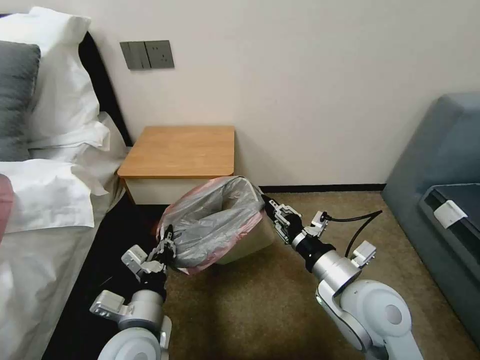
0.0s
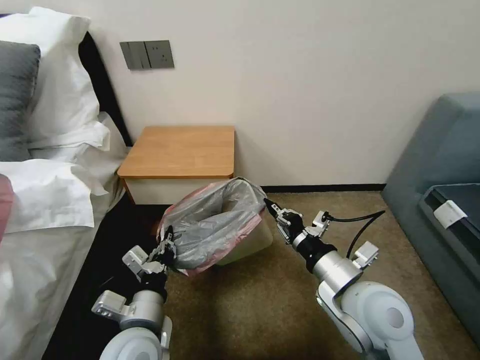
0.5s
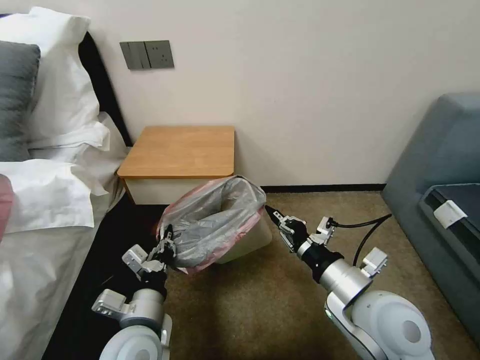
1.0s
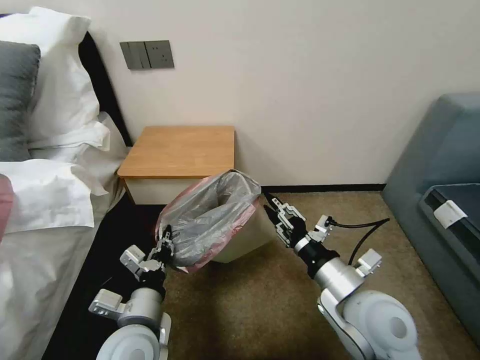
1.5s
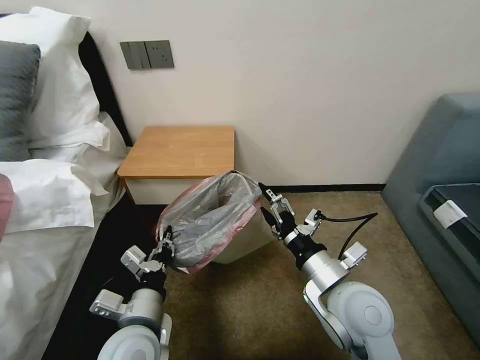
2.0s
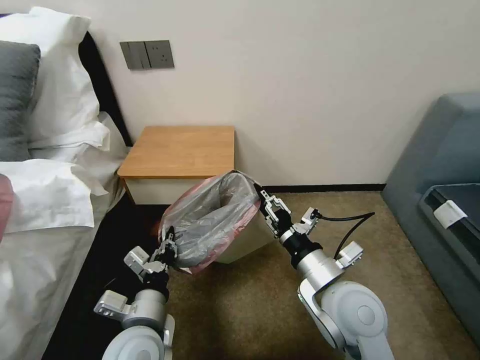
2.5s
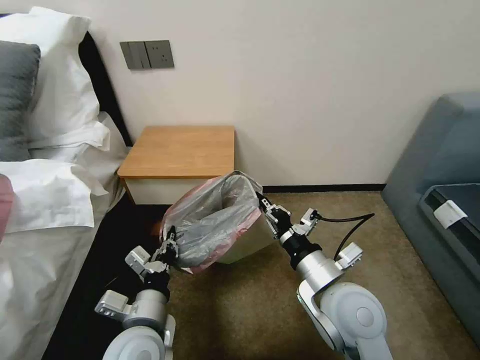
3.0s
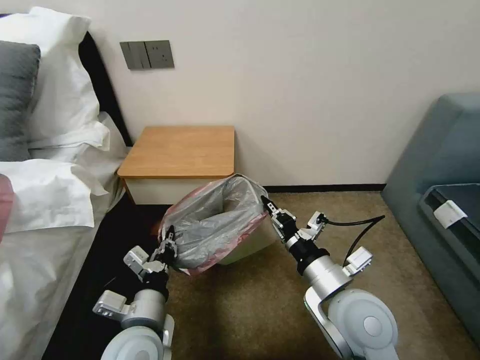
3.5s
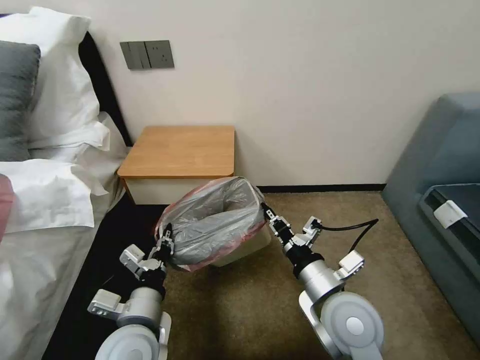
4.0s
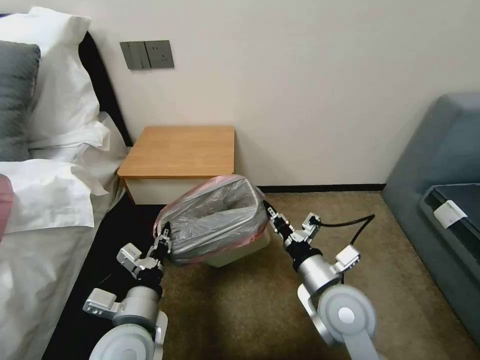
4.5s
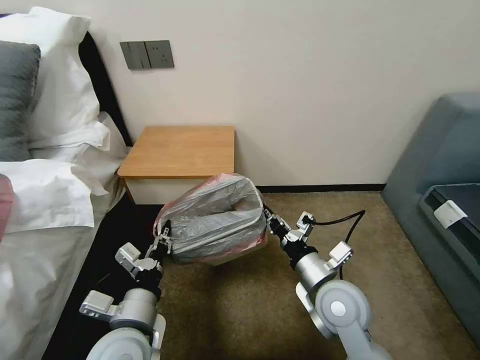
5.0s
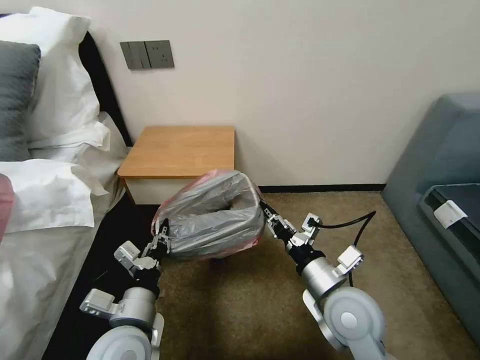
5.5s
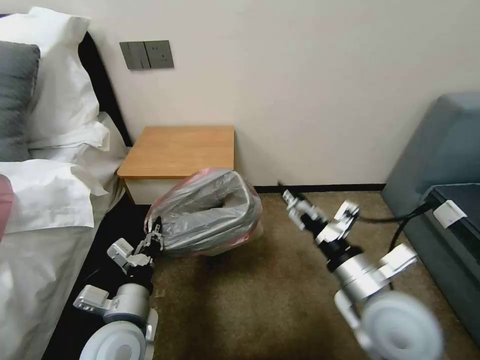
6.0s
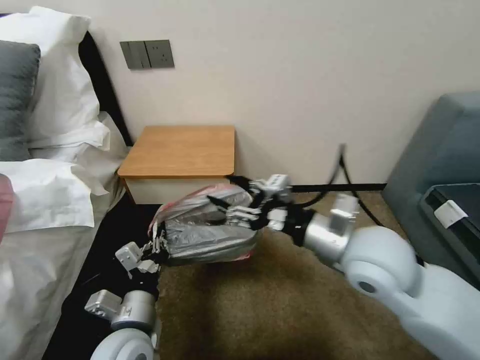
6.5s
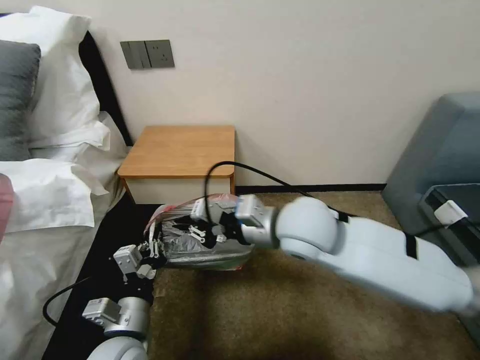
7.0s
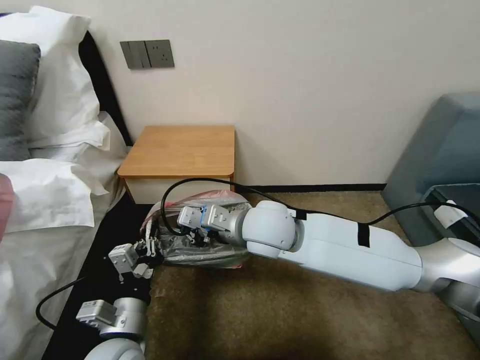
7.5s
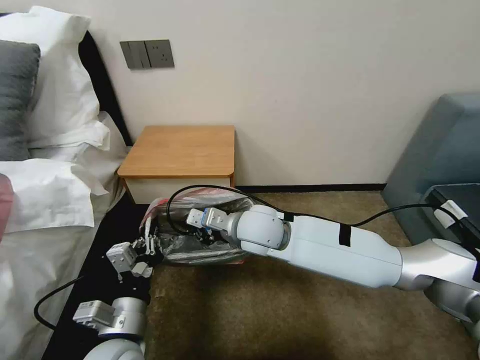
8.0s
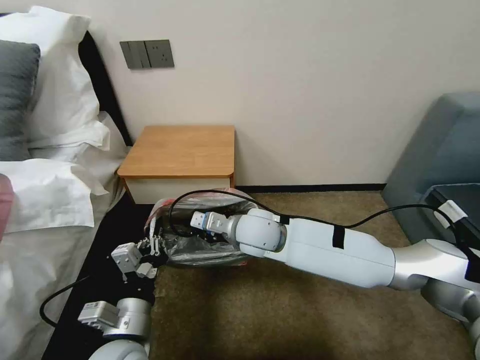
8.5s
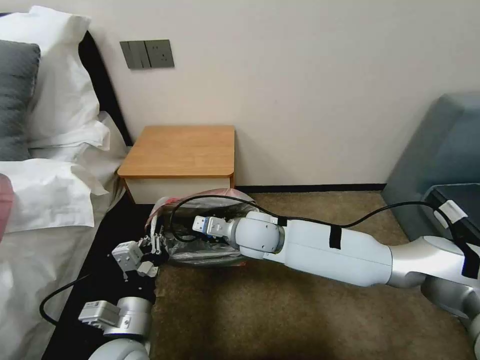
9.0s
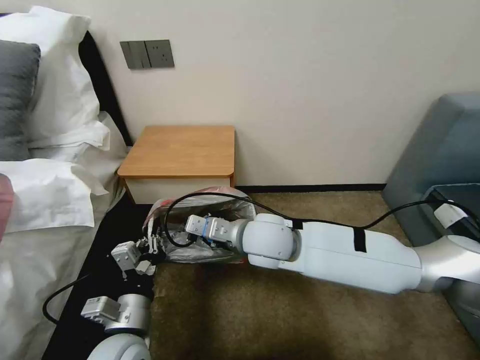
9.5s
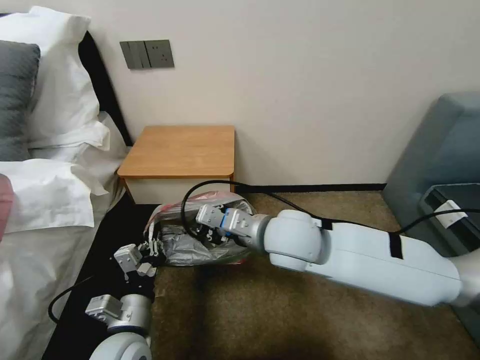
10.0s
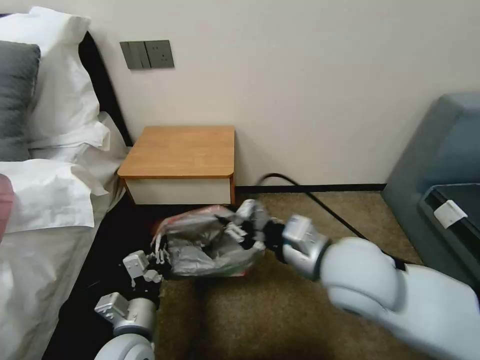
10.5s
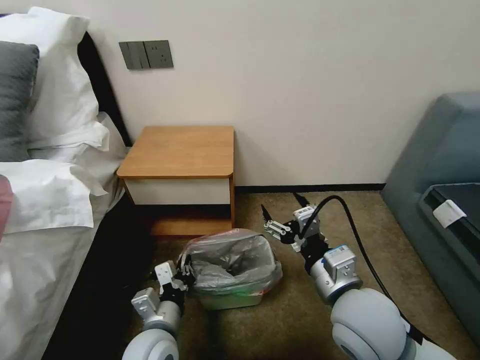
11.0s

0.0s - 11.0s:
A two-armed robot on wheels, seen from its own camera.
Task of the whole recording: Pick up the garbage bag from the table and place it over the trash can.
0.0s - 2.0s: The right gripper opens.
2.0s - 3.5s: The right gripper closes its fingers.
5.5s - 7.5s: The right gripper is displaced to the left, forward and upward by some 20 cm, and opens and closes again.
7.5s - 9.0s: The right gripper is displaced downward by about 10 cm.
9.0s - 11.0s: The left gripper shifts some 5 cm downward, while the right gripper is displaced backward and to the right by about 25 cm, and opens.

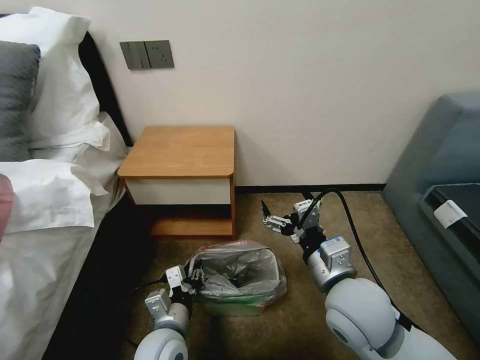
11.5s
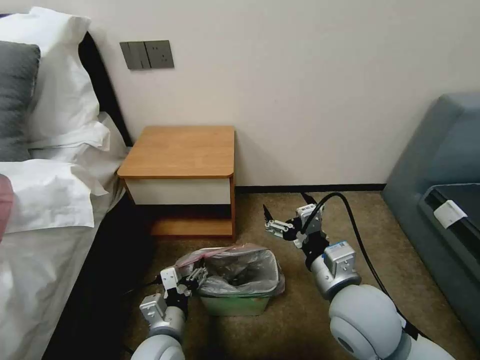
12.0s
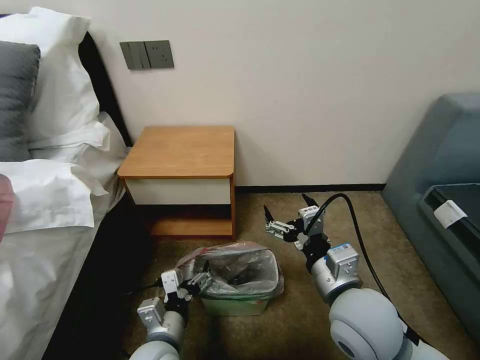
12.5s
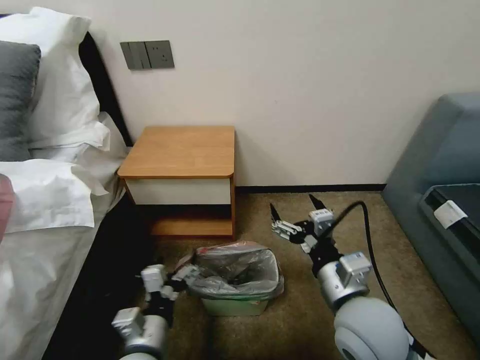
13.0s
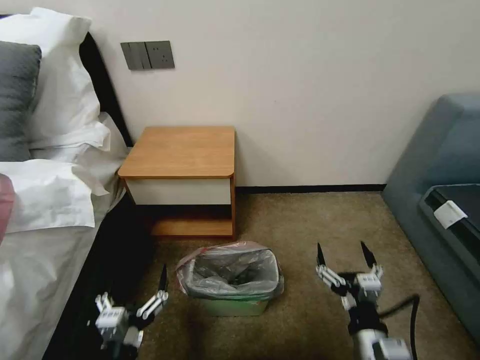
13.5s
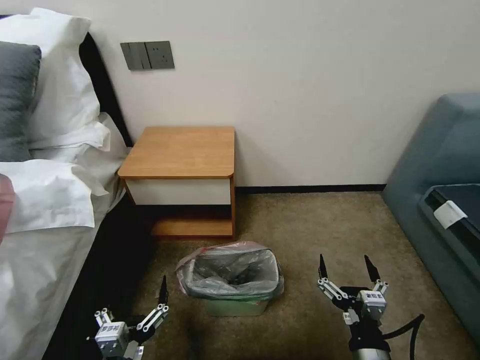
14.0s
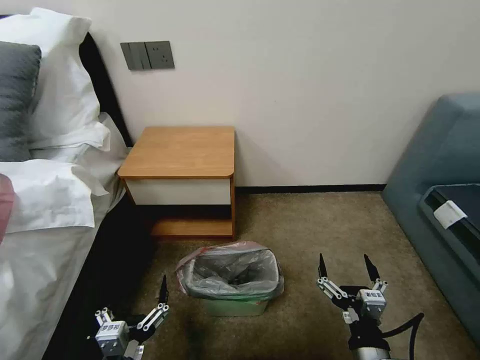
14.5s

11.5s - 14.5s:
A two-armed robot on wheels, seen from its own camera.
Task of the whole recording: Pick up the garbage bag from the table and place it over the trash can.
11.5s - 13.0s: The left gripper shifts by approximately 5 cm, and opens.
13.0s - 14.5s: The left gripper moves backward, approximately 10 cm. Meanwhile the right gripper moves downward and backward, about 15 cm.

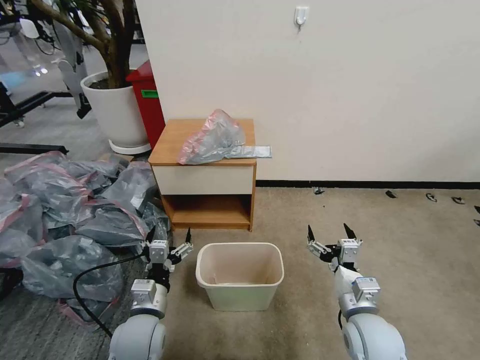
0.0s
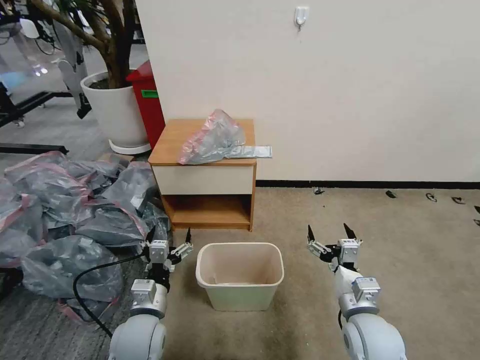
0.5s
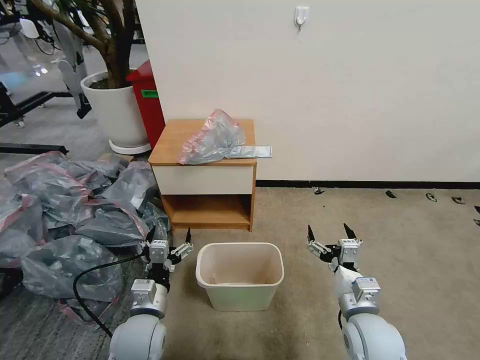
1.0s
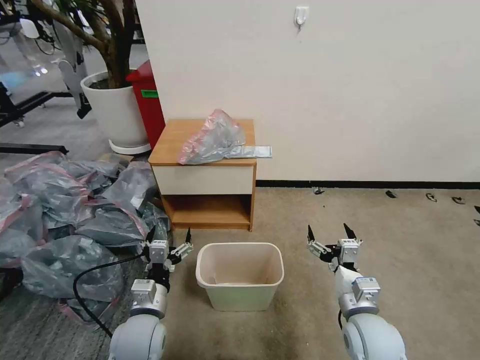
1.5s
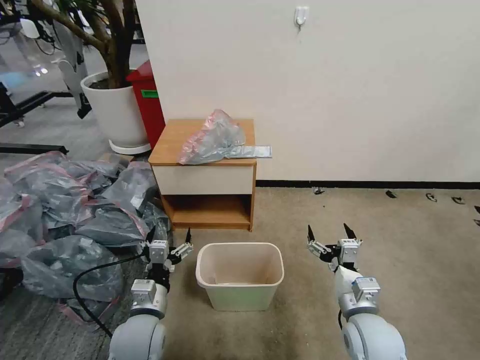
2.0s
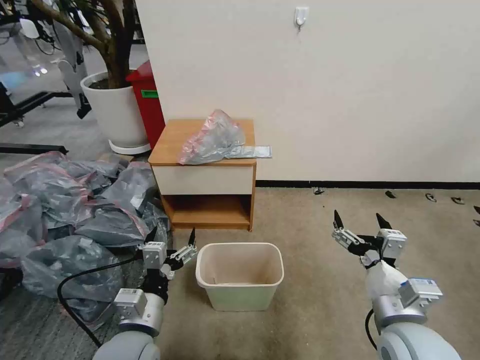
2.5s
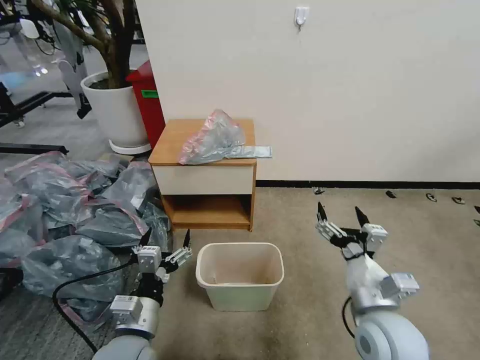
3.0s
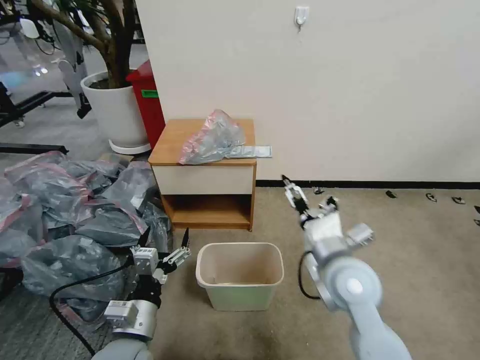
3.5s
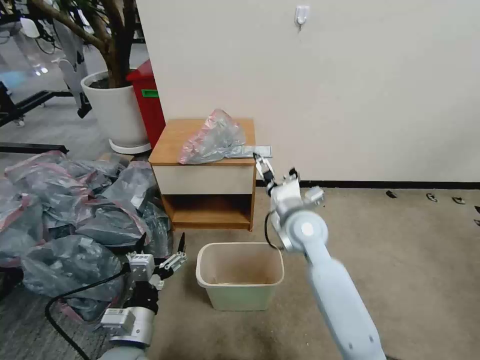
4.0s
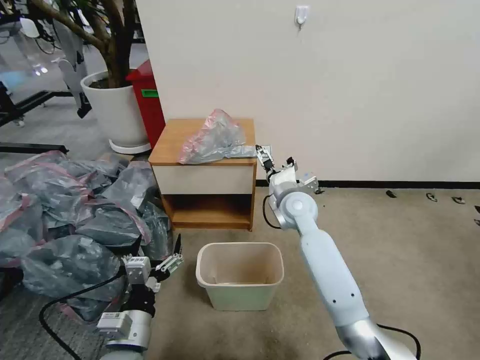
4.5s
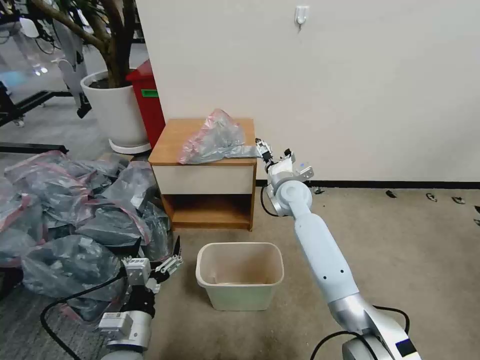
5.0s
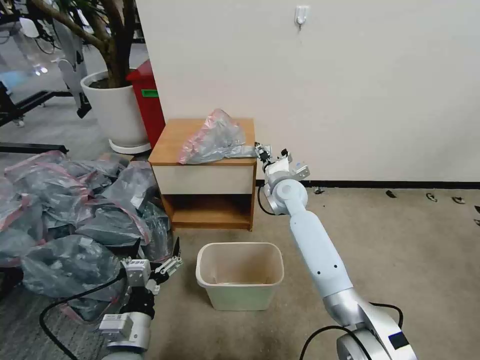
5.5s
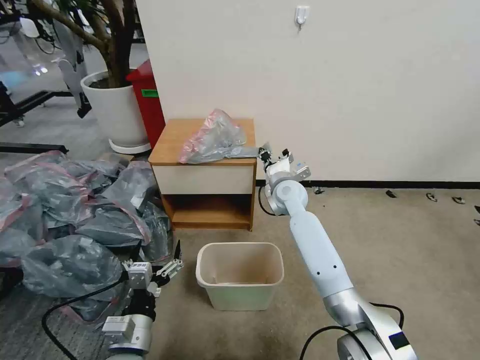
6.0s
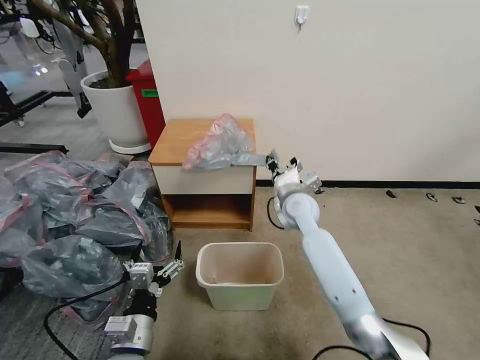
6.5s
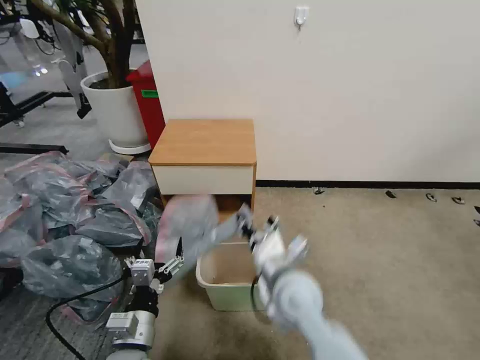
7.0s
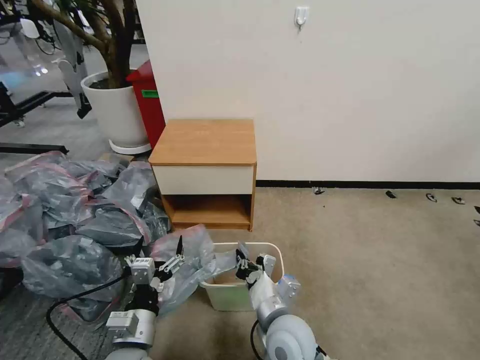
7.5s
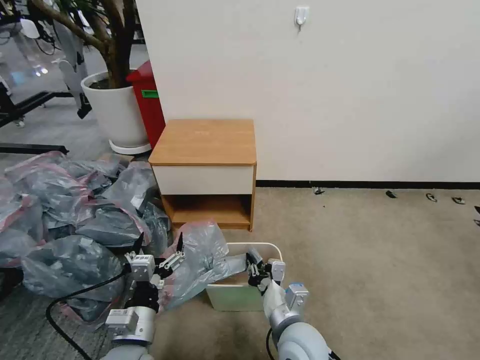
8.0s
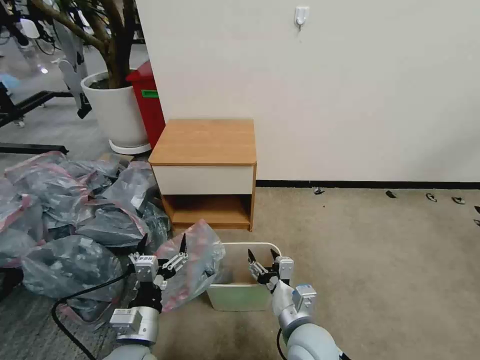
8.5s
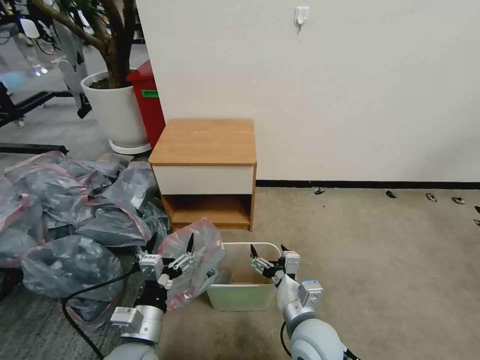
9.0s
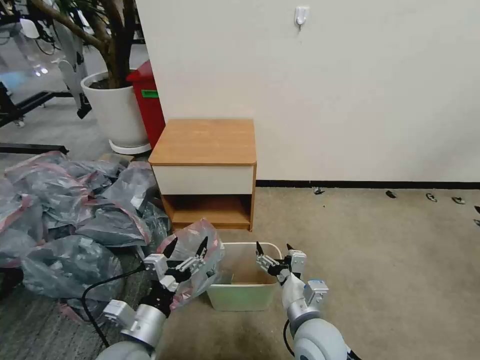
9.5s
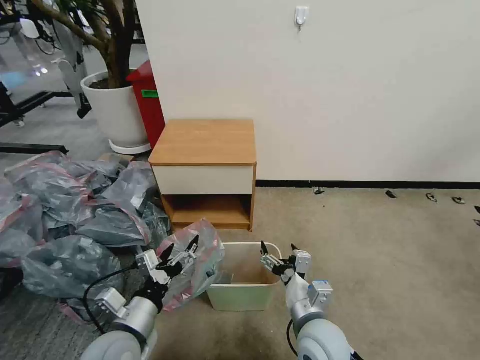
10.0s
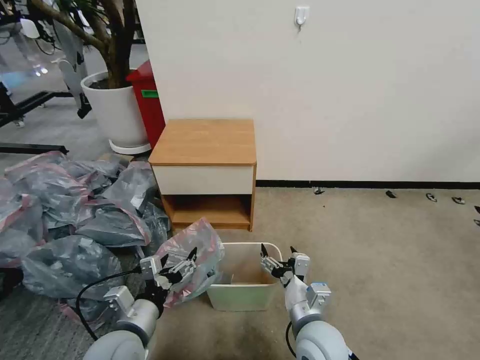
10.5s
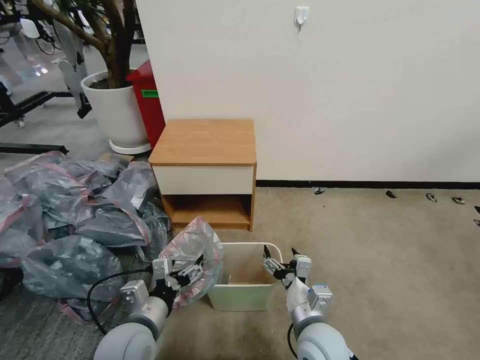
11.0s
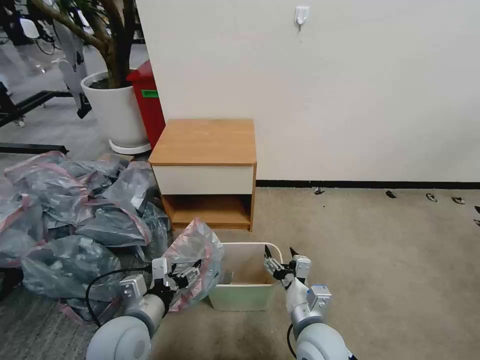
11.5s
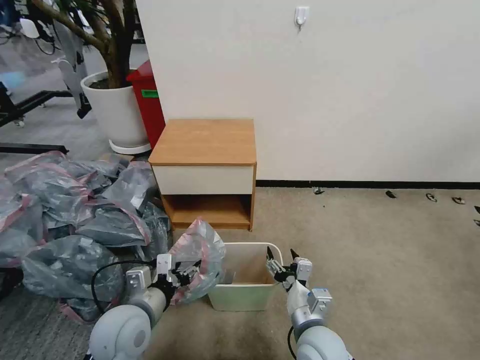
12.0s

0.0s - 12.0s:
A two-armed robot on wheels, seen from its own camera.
Task of the whole recording: Pick up the garbage bag from the table and place it over the trash can.
2.0s - 4.0s: The right gripper is displaced forward, to the left and upward by some 25 cm; the left gripper moves backward, approximately 5 cm.
4.0s - 6.0s: The right gripper travels forward by roughly 15 cm, and closes up.
6.0s - 8.0s: The right gripper travels backward by approximately 35 cm.
8.0s - 10.0s: The right gripper opens its fingers.
